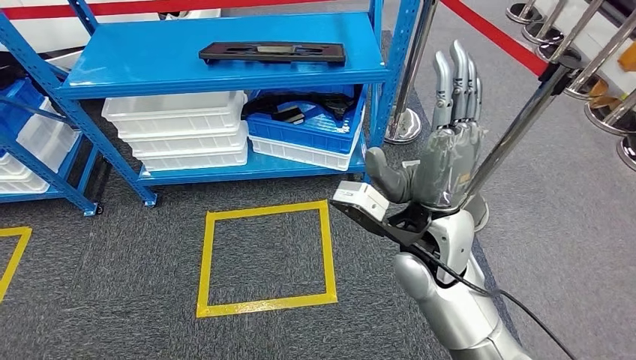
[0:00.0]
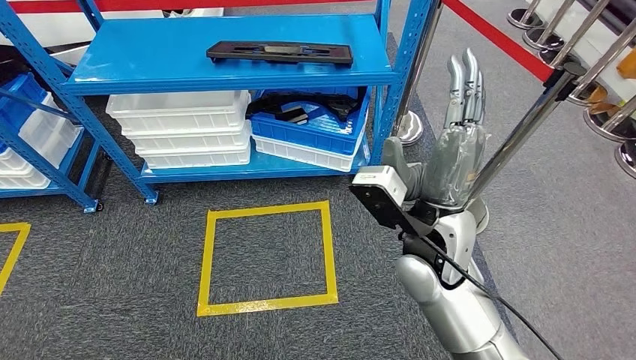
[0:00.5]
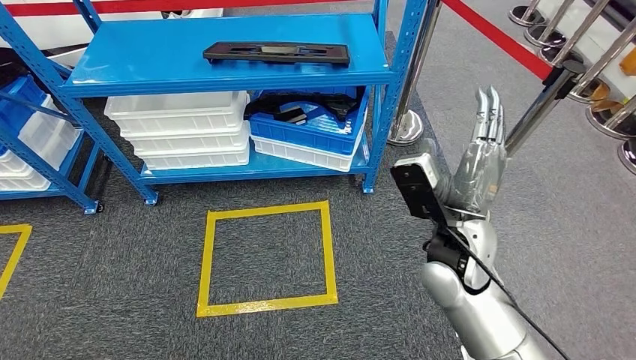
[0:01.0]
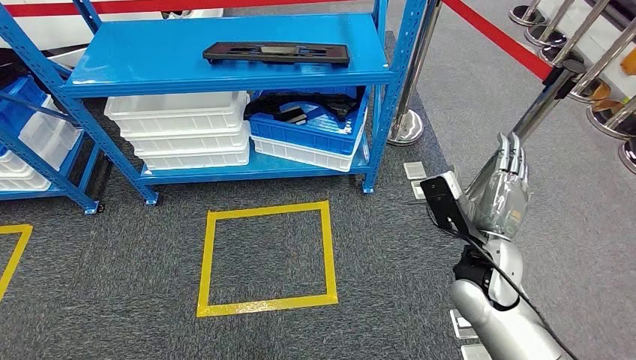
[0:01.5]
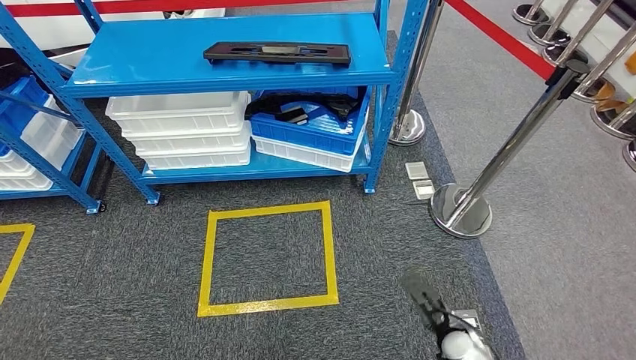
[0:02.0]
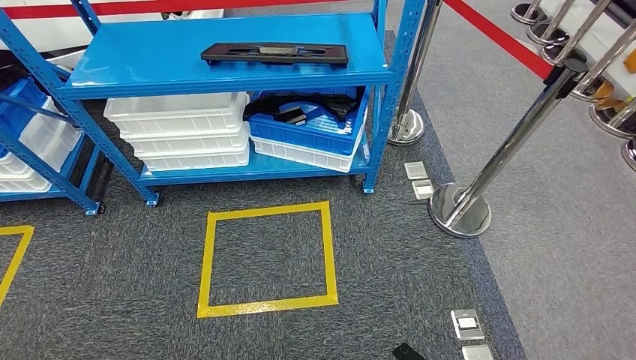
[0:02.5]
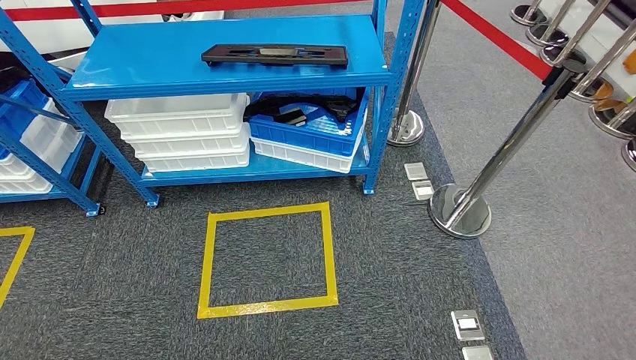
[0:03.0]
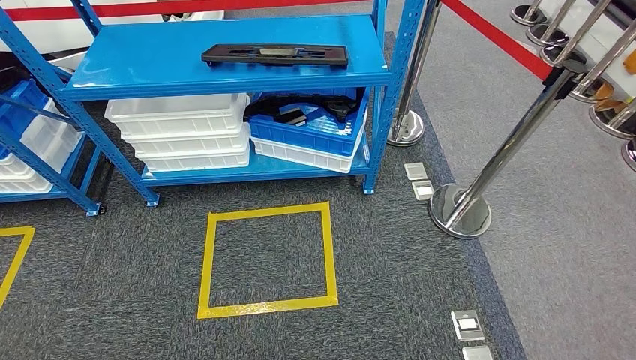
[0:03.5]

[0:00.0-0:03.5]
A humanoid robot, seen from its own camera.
Step, 0:00.0 to 0:03.5: Move to the initial position of the shelf.
0:02.0 to 0:03.5: The right hand shifts approximately 20 cm backward, downward and to the left.
